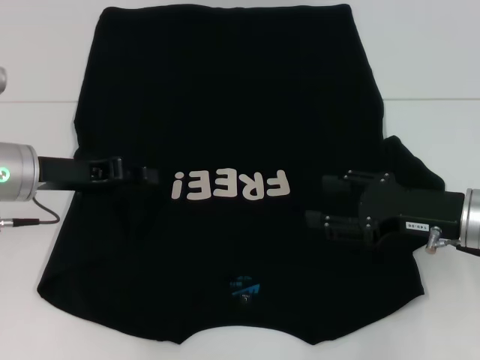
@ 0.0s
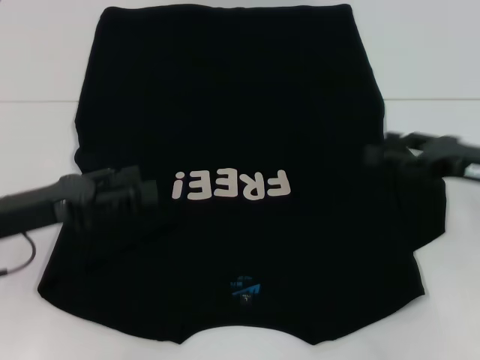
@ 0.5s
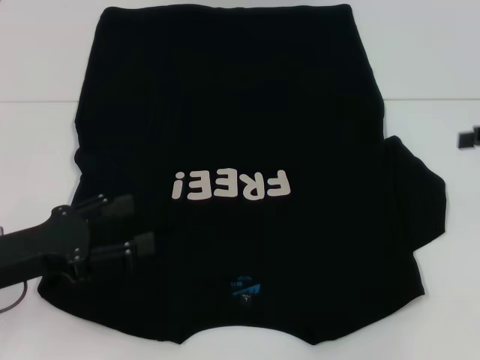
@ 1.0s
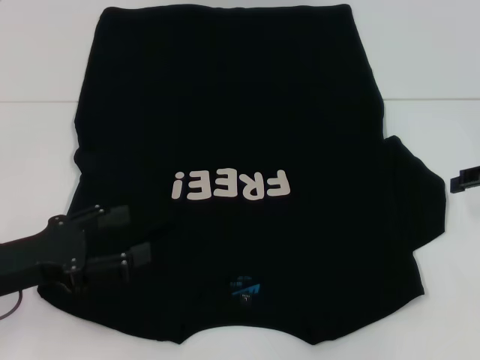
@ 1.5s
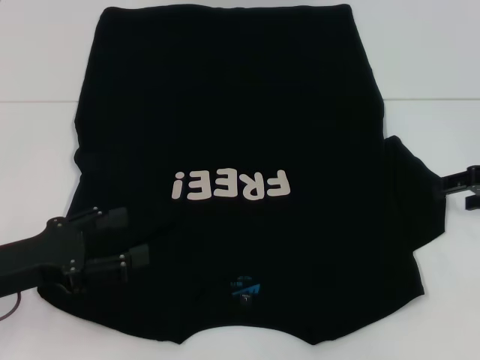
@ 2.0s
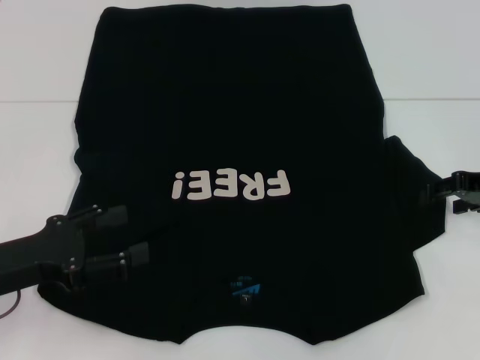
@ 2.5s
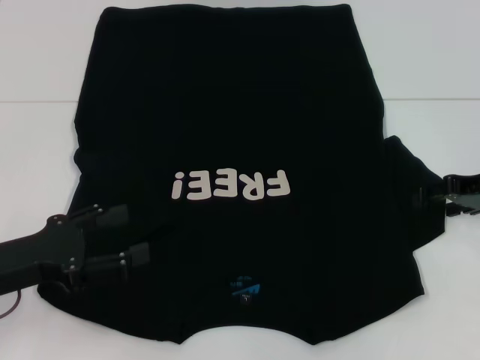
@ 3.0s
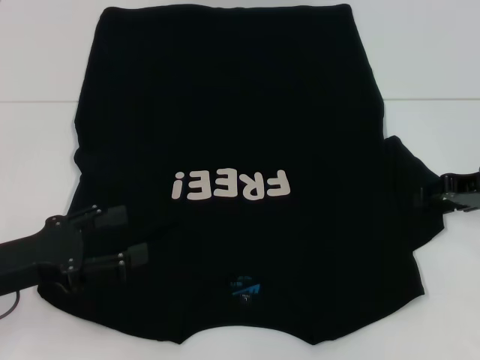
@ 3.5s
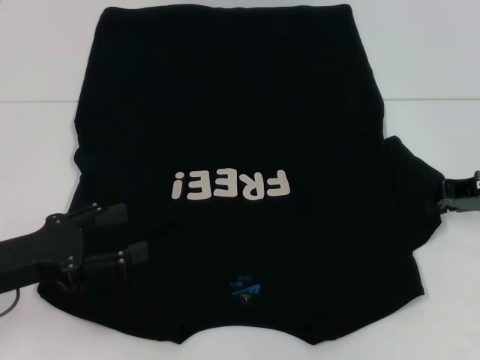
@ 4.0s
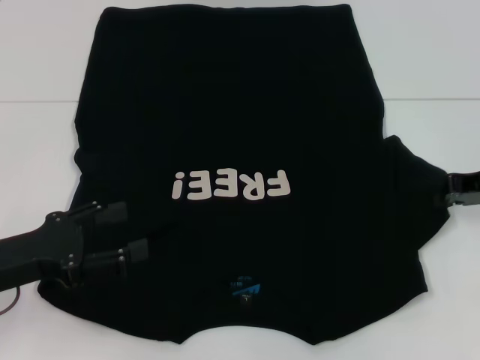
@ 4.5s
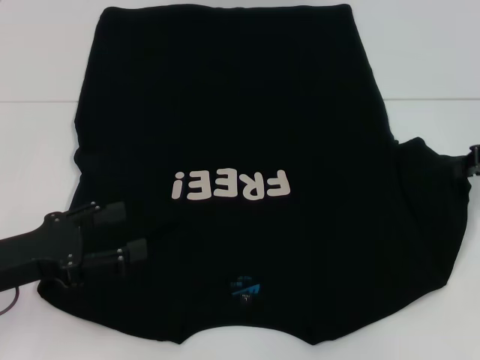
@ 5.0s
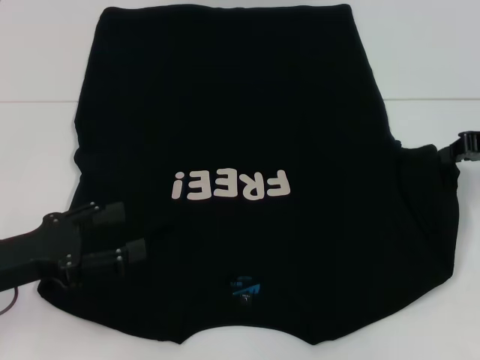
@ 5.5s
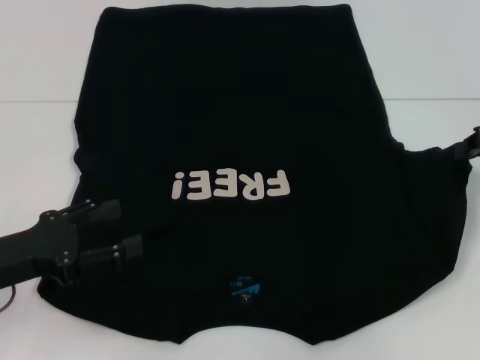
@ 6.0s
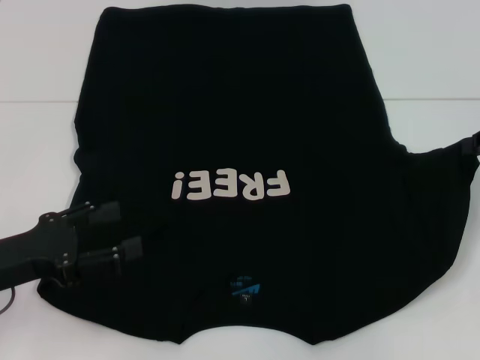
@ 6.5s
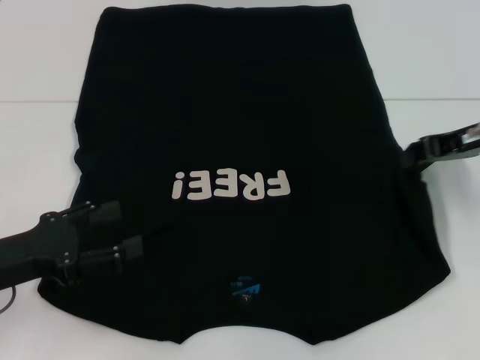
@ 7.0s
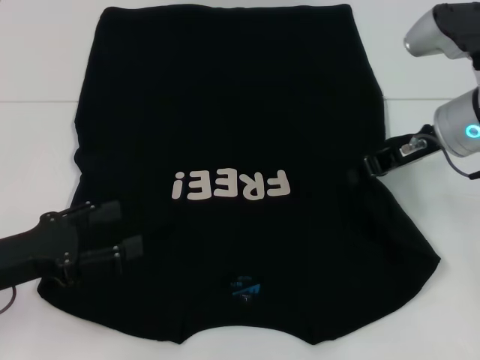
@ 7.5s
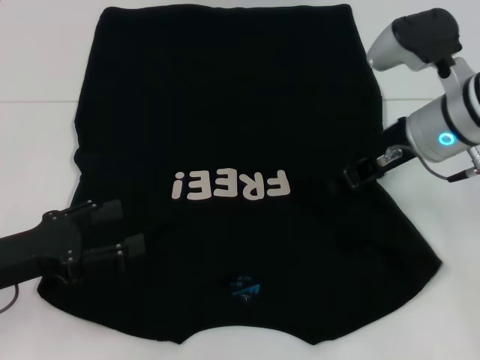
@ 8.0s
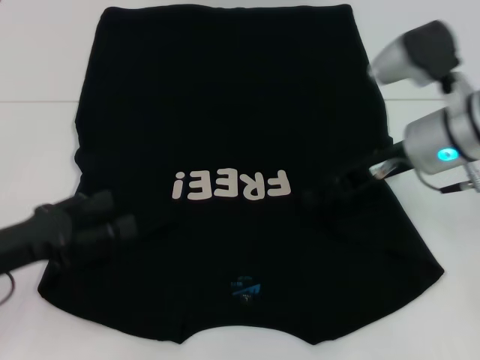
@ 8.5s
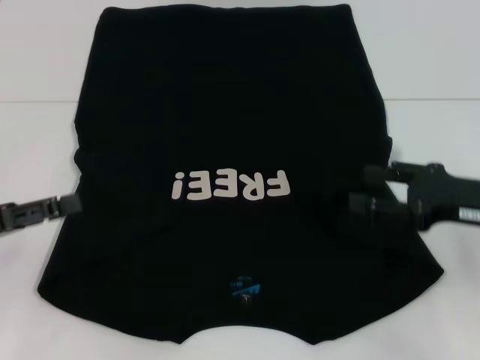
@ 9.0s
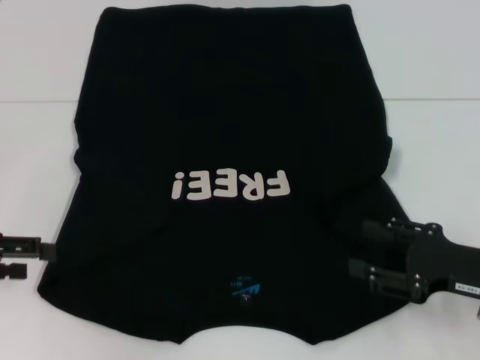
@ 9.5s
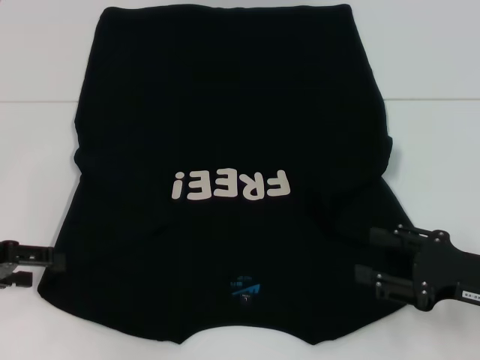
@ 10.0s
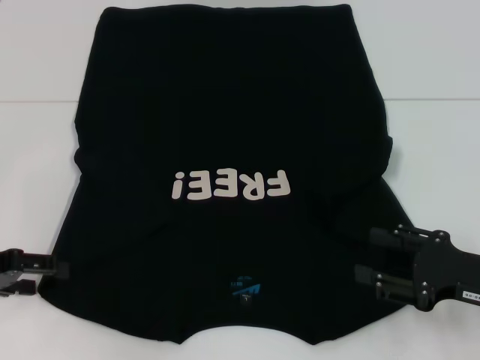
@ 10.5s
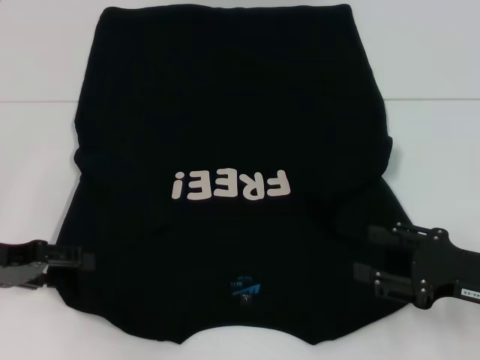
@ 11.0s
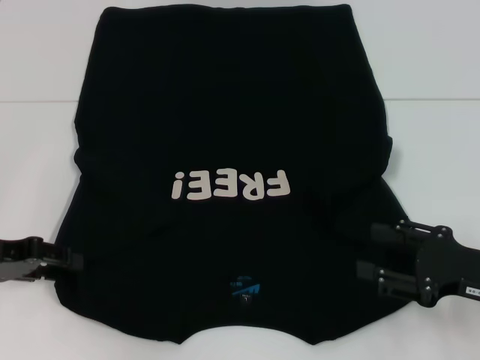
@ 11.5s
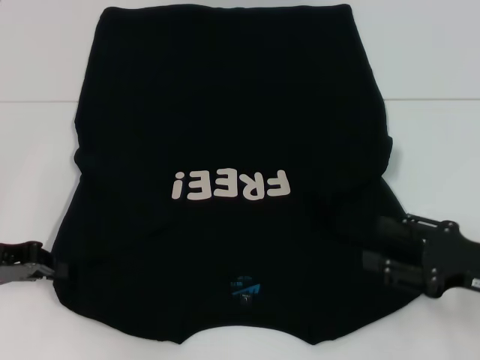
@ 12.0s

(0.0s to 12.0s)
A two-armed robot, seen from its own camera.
Step, 1.0s - 8.5s: Fold the bottom right sleeve with your right hand.
0.0s - 2.0s: The right gripper travels to the right and forward by roughly 10 cm. The left gripper shifts about 10 cm backward, and opens its fingers.
2.0s - 4.0s: The right gripper closes.
4.0s - 6.0s: The right gripper goes approximately 5 cm upward.
6.0s - 8.0s: The right gripper travels to the left by roughly 15 cm.
8.0s - 10.0s: The right gripper heads backward, to the right and downward, covering some 20 cm, and opens its fingers; the left gripper goes some 5 cm to the left.
10.0s - 12.0s: The left gripper closes up.

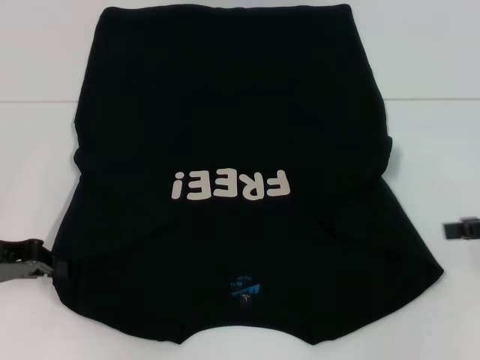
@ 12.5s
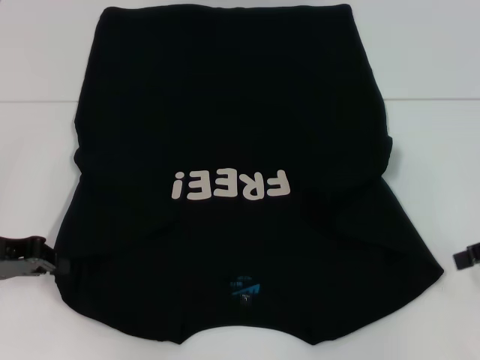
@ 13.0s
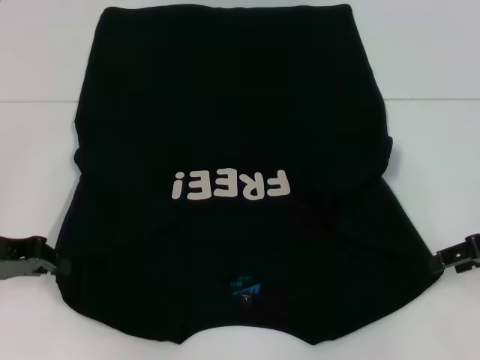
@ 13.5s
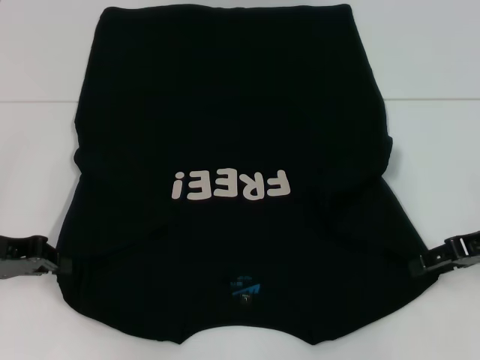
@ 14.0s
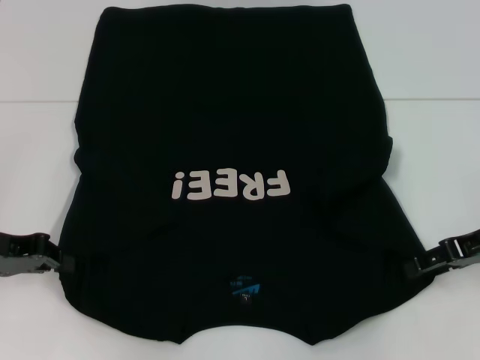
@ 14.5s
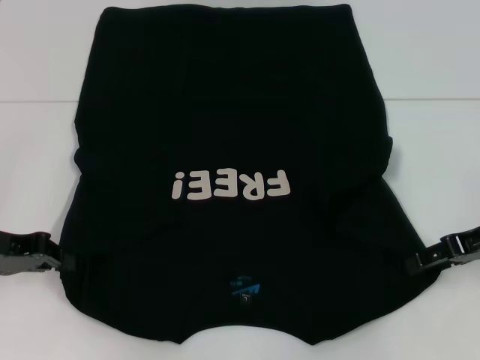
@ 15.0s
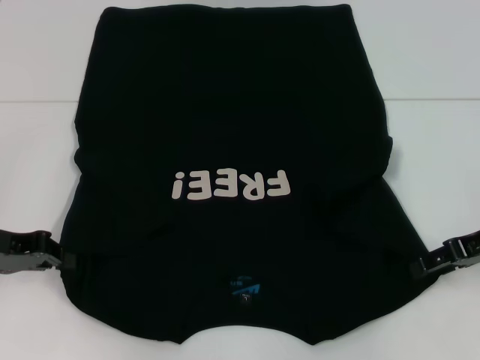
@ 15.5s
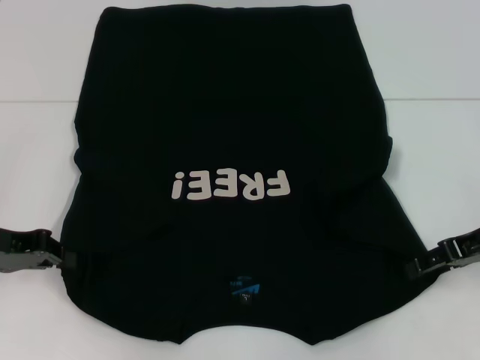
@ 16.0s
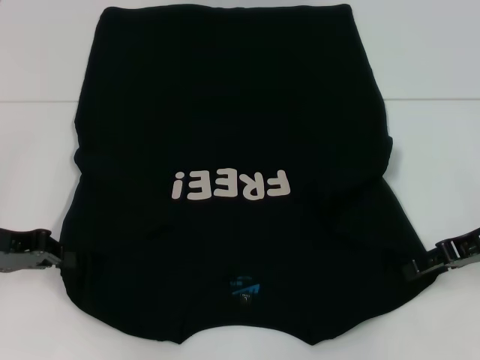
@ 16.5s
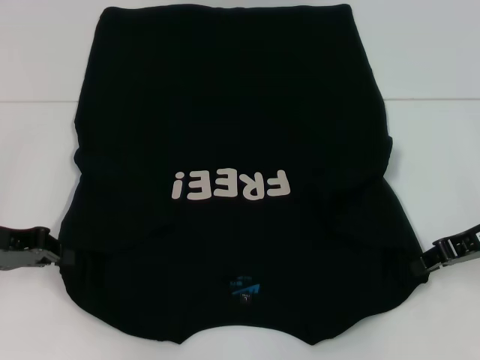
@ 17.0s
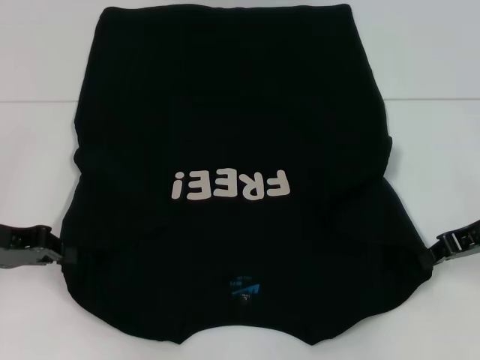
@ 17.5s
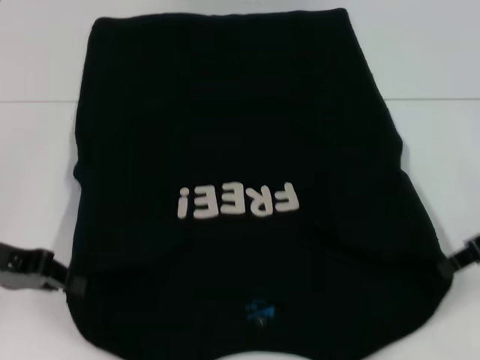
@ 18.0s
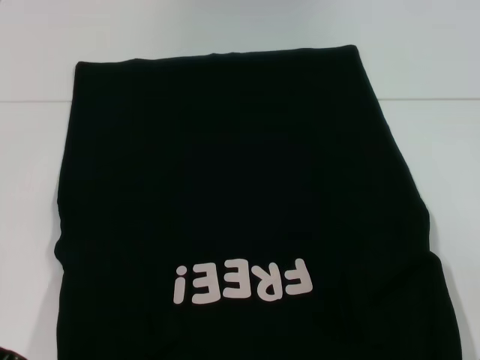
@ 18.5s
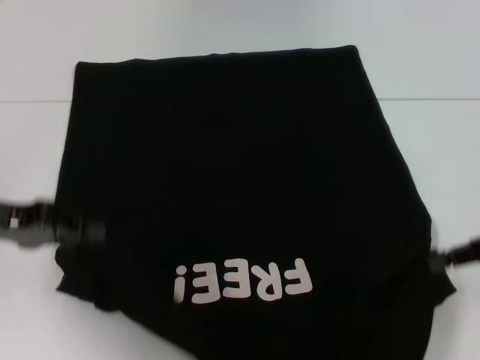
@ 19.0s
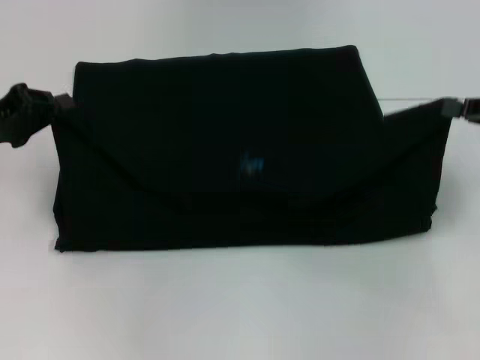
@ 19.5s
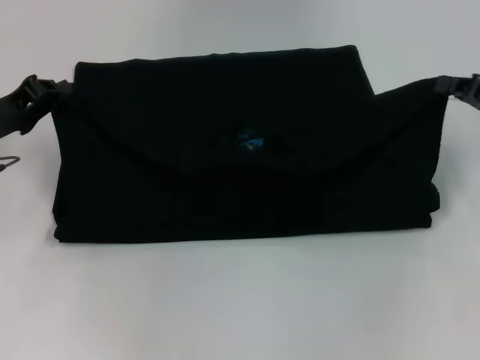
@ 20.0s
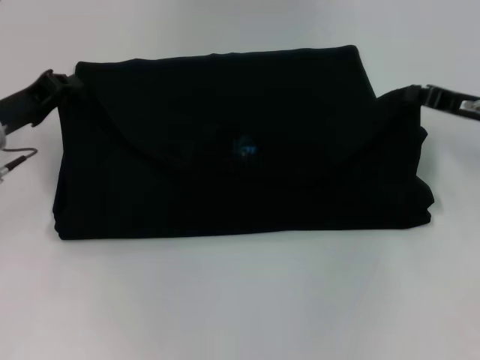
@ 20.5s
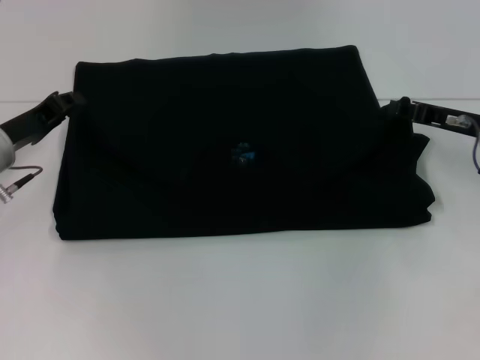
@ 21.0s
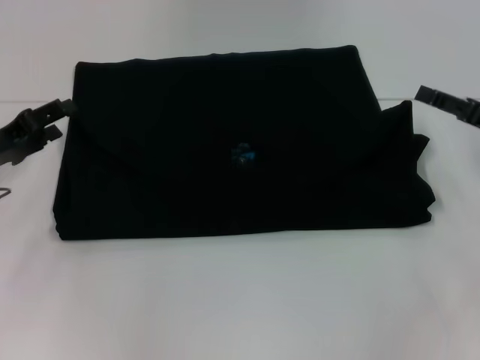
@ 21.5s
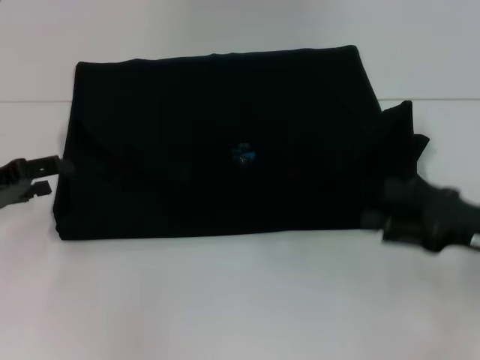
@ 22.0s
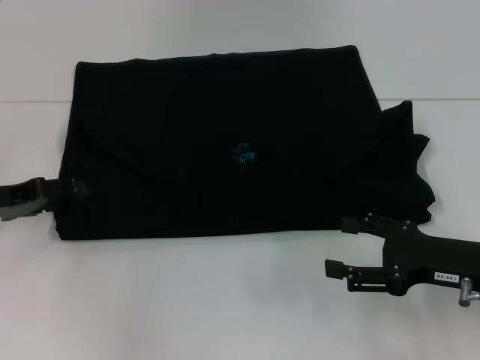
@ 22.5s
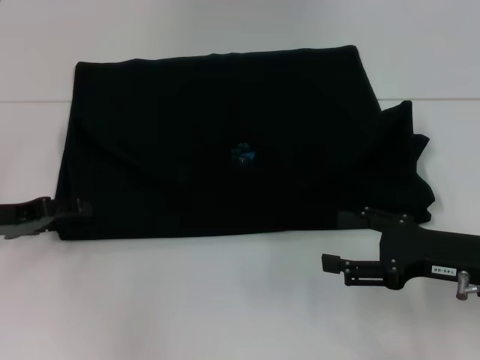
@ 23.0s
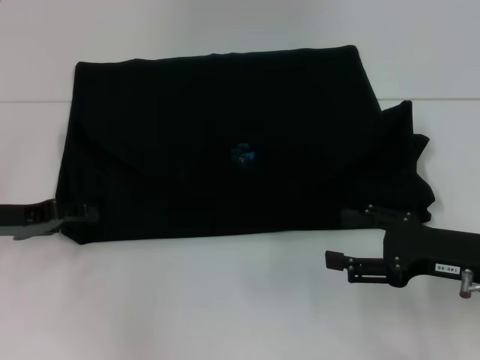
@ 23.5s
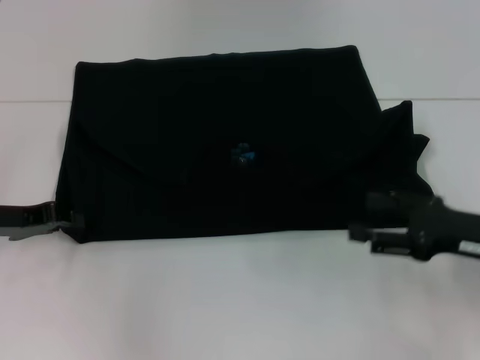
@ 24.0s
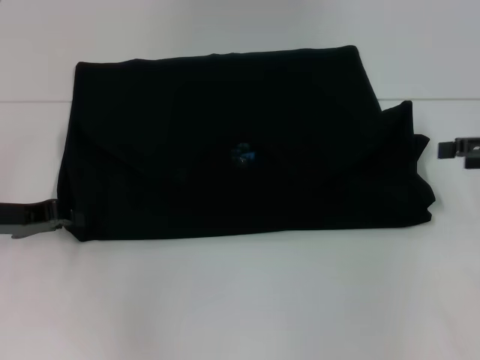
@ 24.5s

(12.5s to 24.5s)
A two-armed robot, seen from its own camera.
Step, 13.0s - 17.0s: Grab the bottom right corner with your right hand.
Step, 17.5s - 21.0s: Fold the clothes with your left hand.
Step, 17.5s - 21.0s: Fold the clothes with your right hand.
12.5s - 14.5s: The right gripper goes about 5 cm to the left.
14.5s - 16.5s: Both grippers stay about where they are.
16.5s - 18.5s: Both grippers move backward, some 5 cm. The right gripper closes its fingers.
18.5s - 20.5s: The two grippers go about 10 cm forward.
20.5s - 22.5s: The left gripper goes roughly 5 cm backward, and opens up. The right gripper travels backward by some 15 cm, and opens its fingers.
22.5s - 24.5s: The left gripper closes up. The right gripper is displaced upward, to the right and forward by approximately 15 cm.

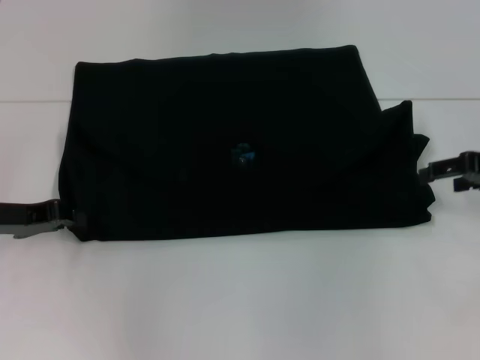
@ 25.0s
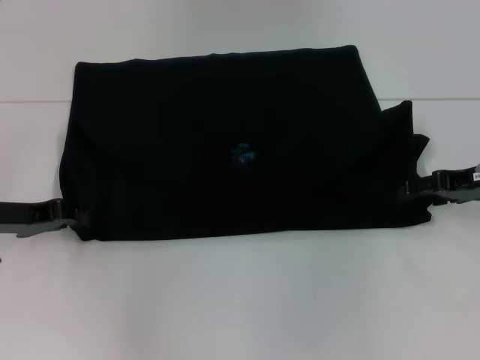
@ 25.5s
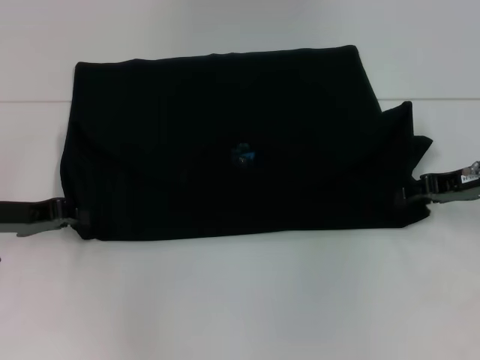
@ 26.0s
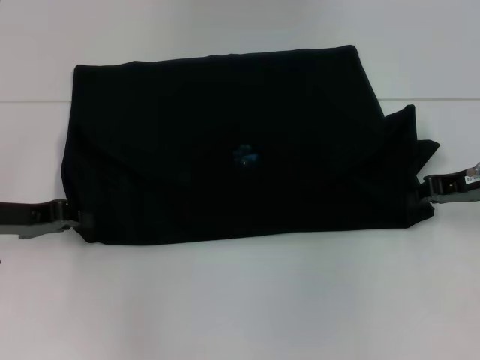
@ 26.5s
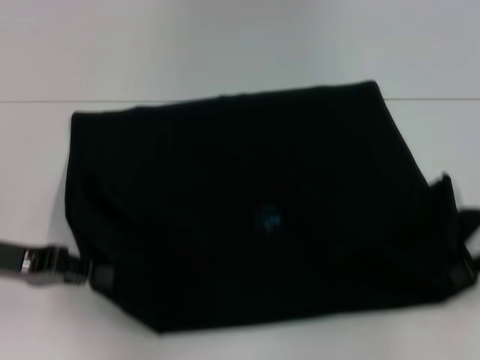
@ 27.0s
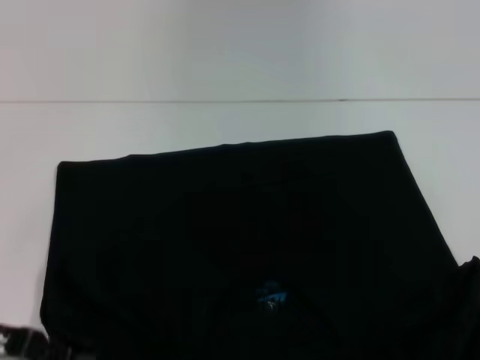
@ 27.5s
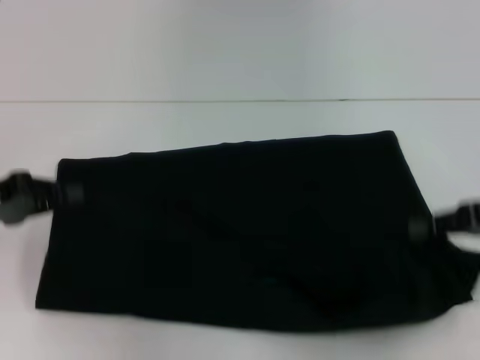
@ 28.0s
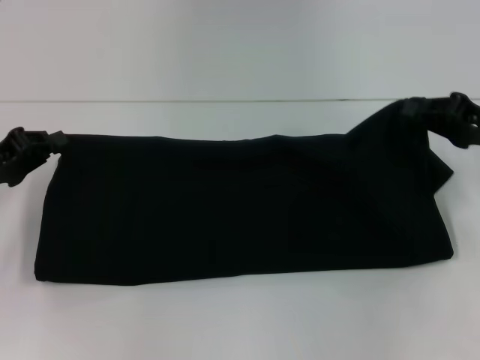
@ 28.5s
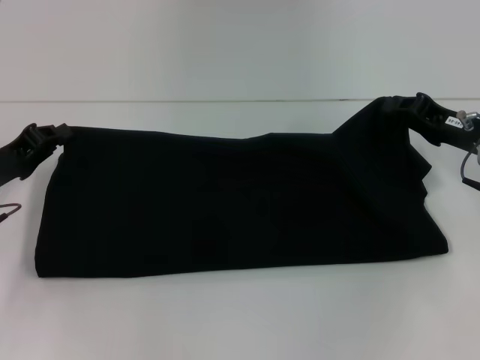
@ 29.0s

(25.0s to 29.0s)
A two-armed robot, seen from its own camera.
Step, 25.0s - 27.0s: Pull the clothes with your left hand.
Step, 25.0s - 27.0s: Pull the clothes with your right hand.
25.0s - 27.0s: The left gripper moves roughly 5 cm. Meanwhile the right gripper moves backward, approximately 5 cm, and closes its fingers.
27.0s - 29.0s: The left gripper changes place by approximately 5 cm. The right gripper travels to the left and forward by some 10 cm.
